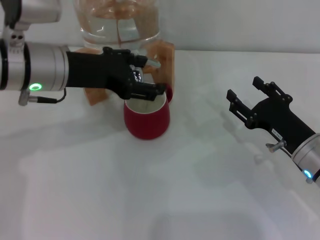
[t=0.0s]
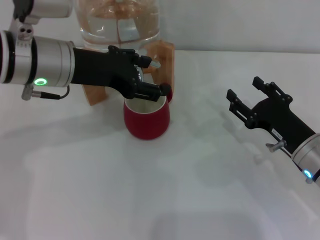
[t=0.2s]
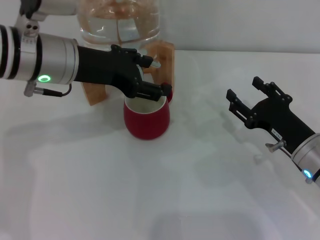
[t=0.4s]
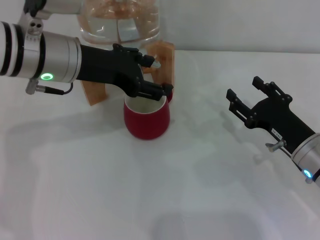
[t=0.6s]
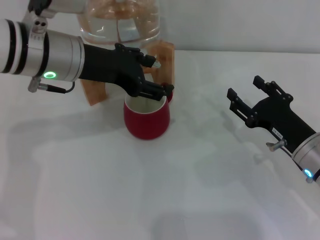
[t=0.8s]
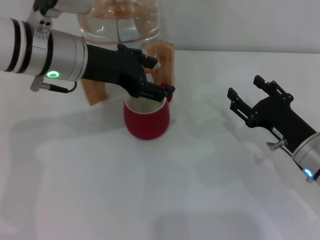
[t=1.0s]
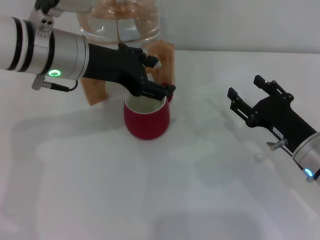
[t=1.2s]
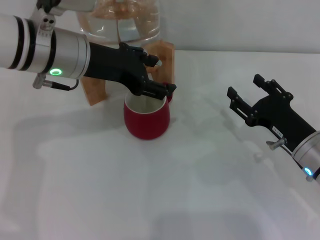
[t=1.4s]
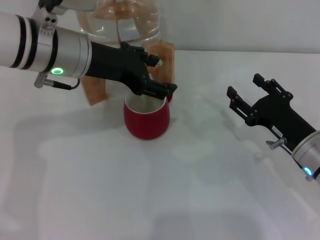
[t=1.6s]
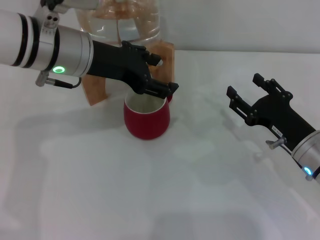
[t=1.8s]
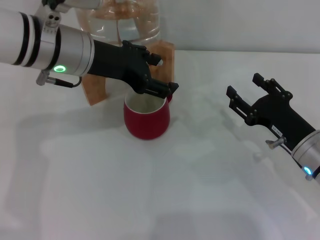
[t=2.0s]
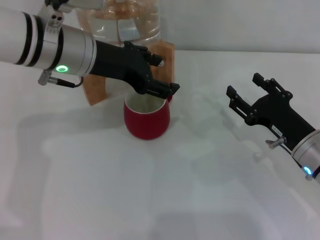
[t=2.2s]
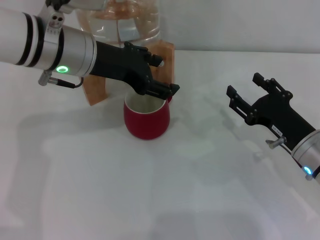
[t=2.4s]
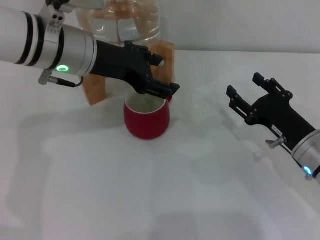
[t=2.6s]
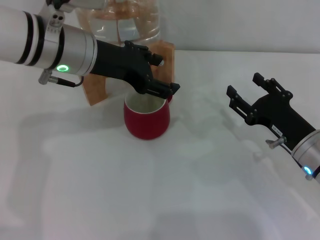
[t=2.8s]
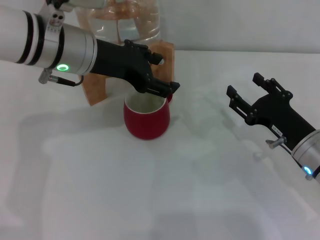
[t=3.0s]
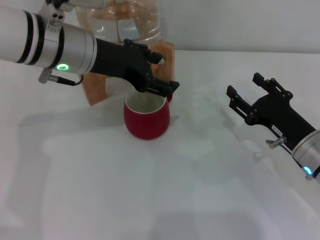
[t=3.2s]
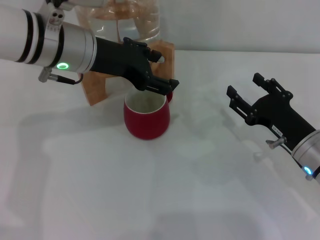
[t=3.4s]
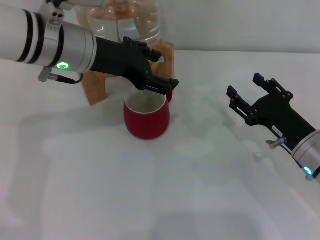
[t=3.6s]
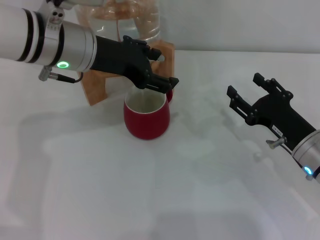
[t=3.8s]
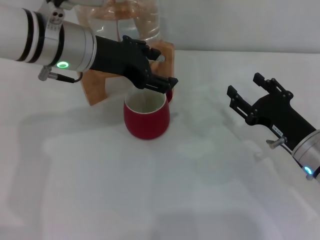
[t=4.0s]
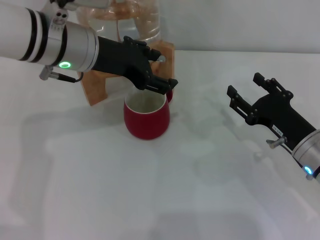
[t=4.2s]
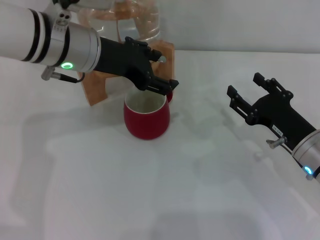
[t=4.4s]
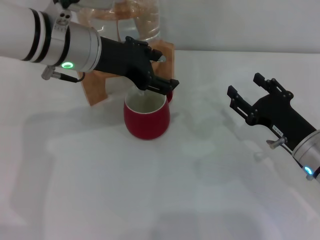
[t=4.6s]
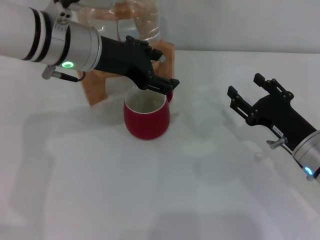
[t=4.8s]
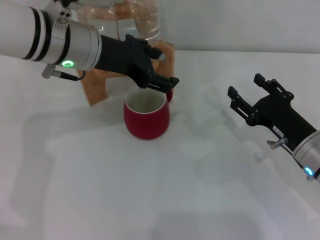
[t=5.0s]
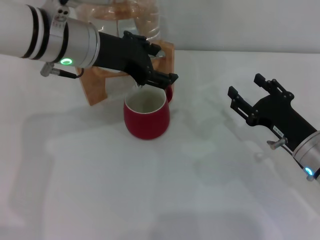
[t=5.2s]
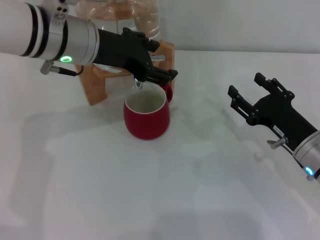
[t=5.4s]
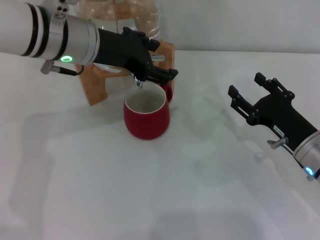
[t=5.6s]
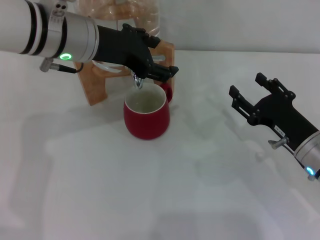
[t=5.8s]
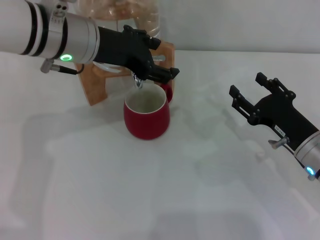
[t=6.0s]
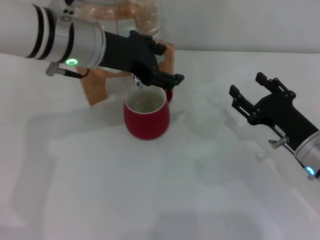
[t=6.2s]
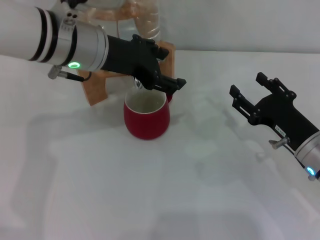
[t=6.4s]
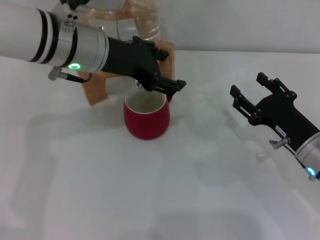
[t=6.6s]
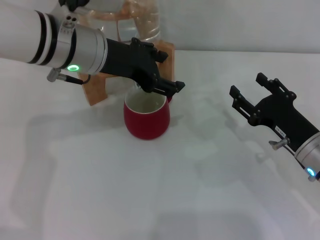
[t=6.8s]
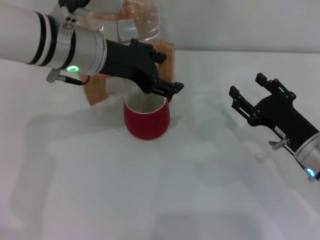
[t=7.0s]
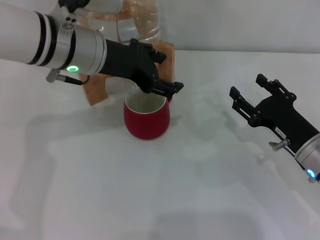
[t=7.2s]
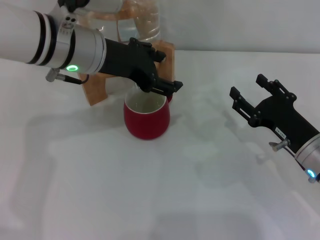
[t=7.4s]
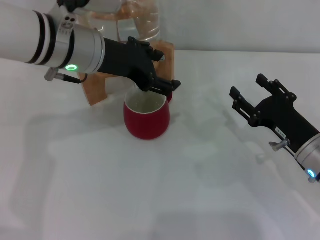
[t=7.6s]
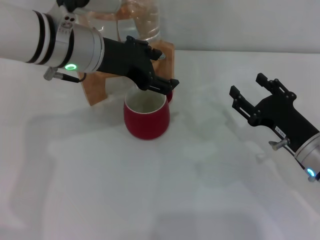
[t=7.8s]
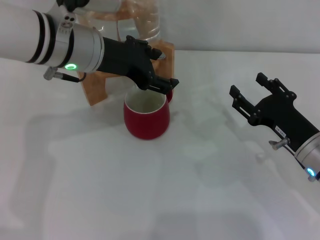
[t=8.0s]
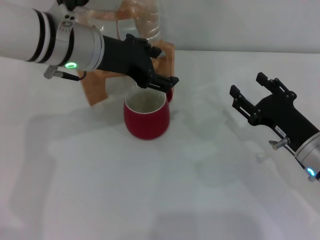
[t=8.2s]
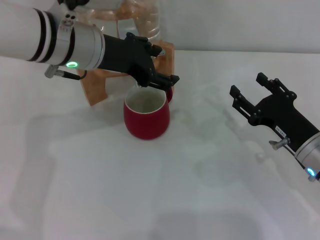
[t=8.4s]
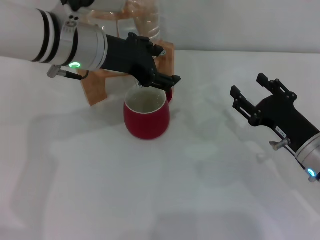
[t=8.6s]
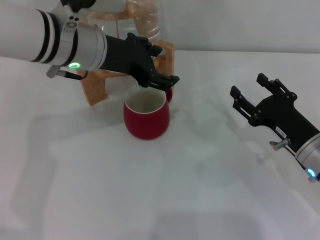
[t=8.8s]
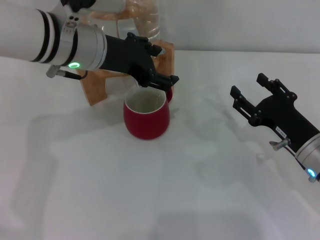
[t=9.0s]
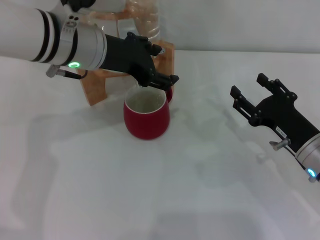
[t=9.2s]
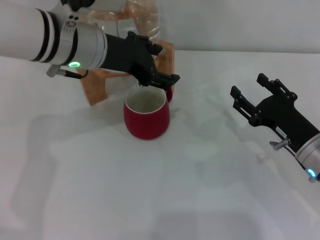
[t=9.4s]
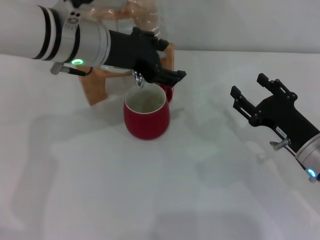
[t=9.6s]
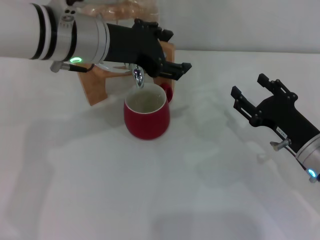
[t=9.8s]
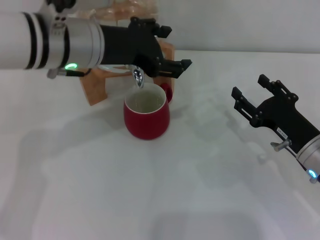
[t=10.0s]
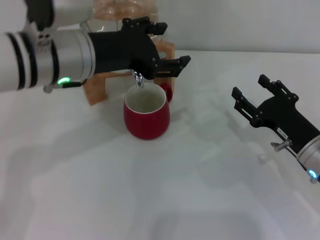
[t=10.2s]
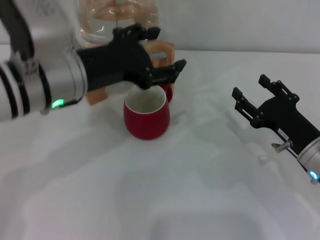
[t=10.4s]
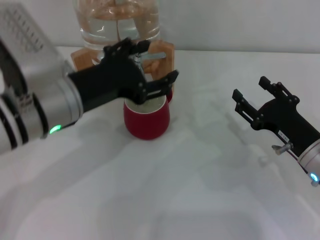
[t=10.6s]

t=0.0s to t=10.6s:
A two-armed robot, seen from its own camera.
Task of the whole recording: the right gripper pick up the red cup and place it horizontally under the faucet, the left gripper turn on the faucet to fill the cup, and then turn off the faucet.
t=0.0s to t=1.6s: The grippers make only small movements.
t=1.6s to t=4.6s: Both grippers stay about where they are.
t=4.6s to t=9.0s: The two grippers keep their place.
t=9.0s to t=10.6s: The left gripper goes approximately 10 cm backward.

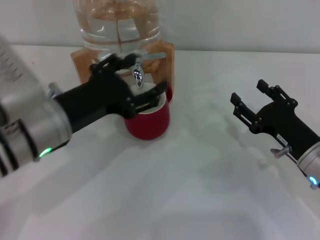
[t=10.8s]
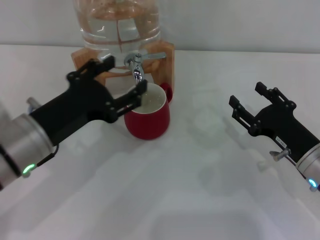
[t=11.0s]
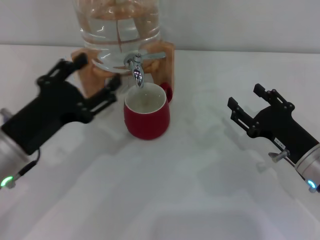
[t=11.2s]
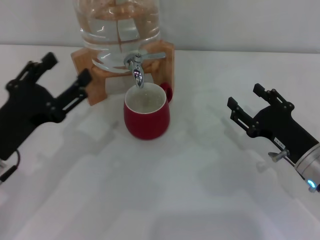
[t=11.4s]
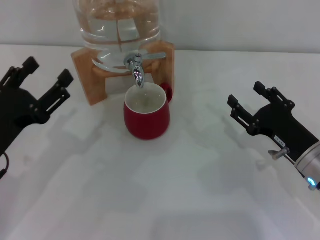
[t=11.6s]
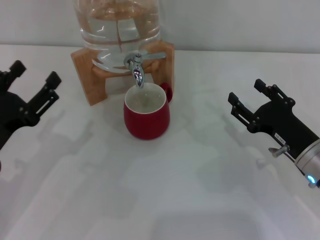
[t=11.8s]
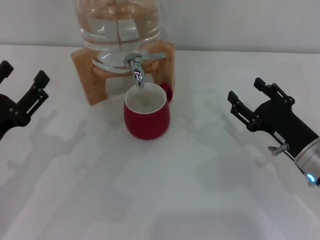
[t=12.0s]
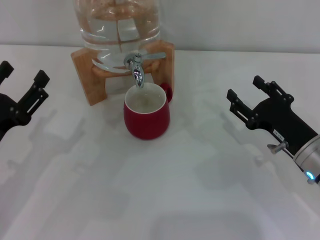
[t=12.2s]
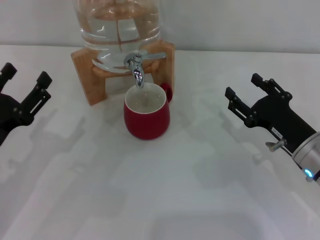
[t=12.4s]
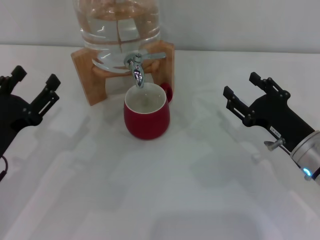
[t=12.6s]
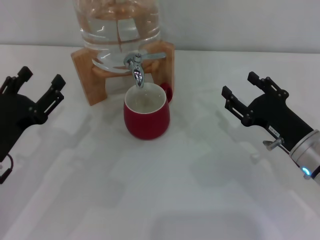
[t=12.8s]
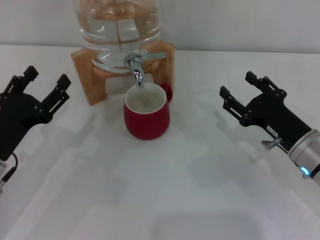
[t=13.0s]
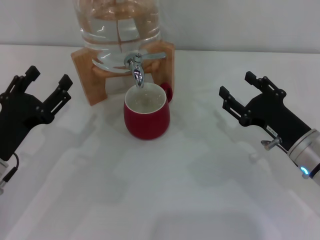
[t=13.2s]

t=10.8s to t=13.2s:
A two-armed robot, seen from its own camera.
Task of the whole recording: the right gripper pick up the red cup and place it horizontally under the faucet, the left gripper turn on the faucet to fill the cup, and then turn off the faucet.
t=10.8s to t=12.0s: The left gripper moves to the left, downward and backward, approximately 15 cm.
t=12.0s to t=13.2s: The grippers move only a little.
